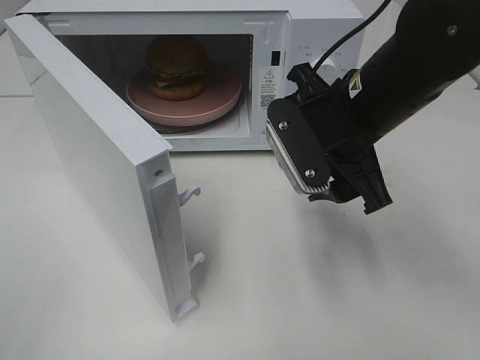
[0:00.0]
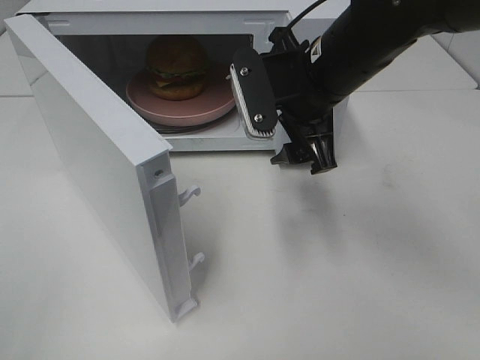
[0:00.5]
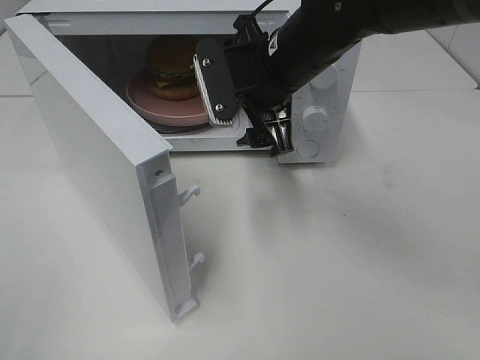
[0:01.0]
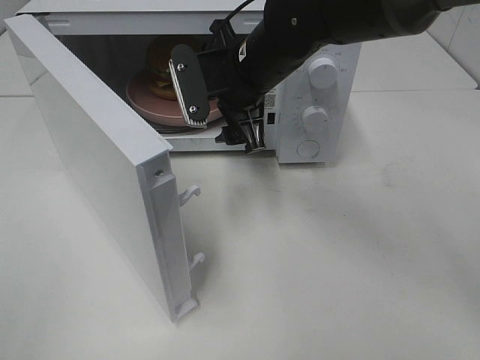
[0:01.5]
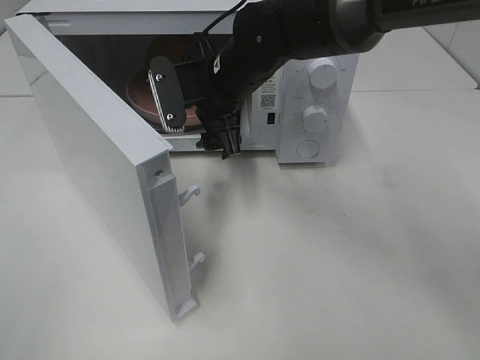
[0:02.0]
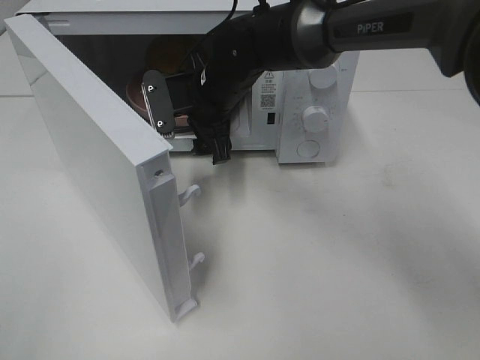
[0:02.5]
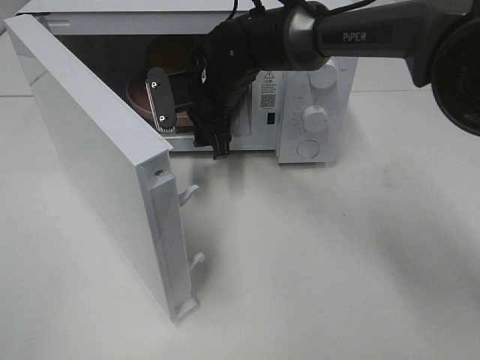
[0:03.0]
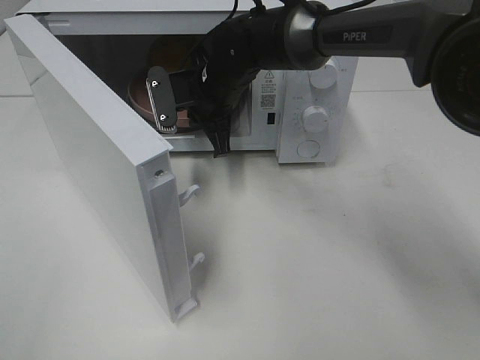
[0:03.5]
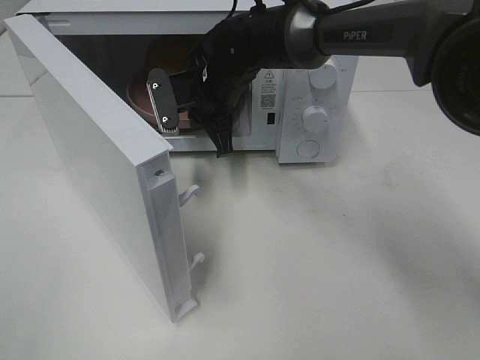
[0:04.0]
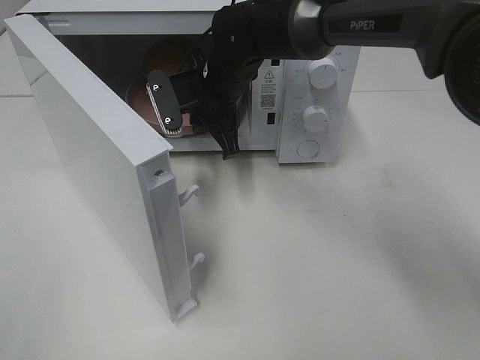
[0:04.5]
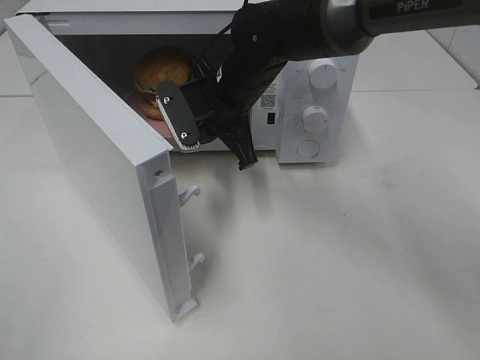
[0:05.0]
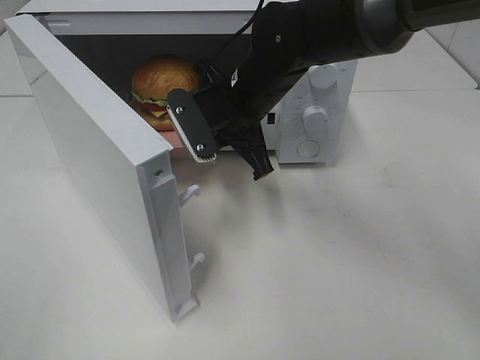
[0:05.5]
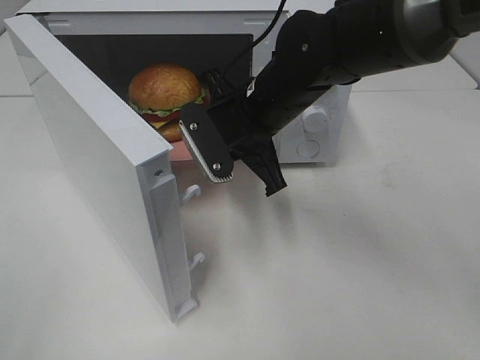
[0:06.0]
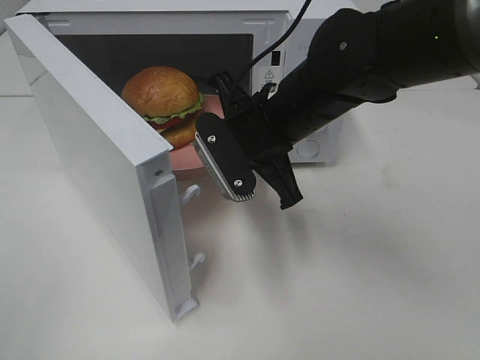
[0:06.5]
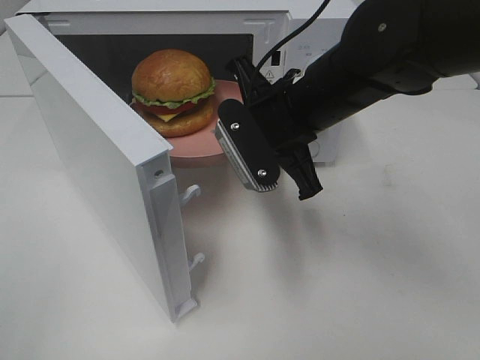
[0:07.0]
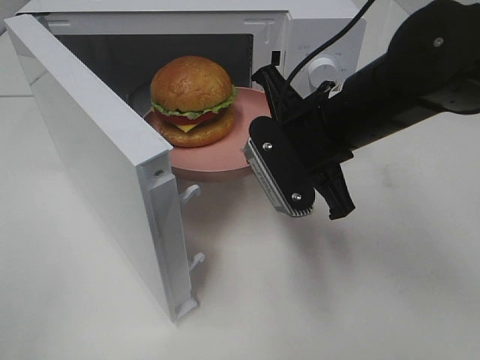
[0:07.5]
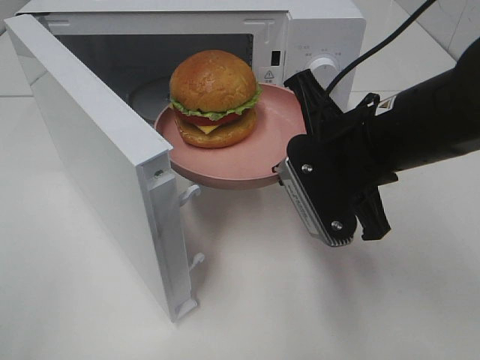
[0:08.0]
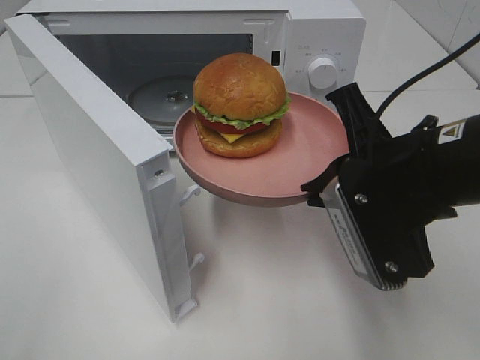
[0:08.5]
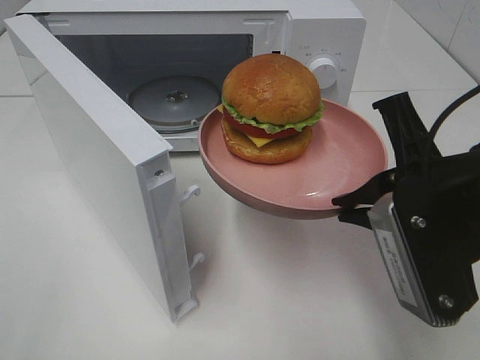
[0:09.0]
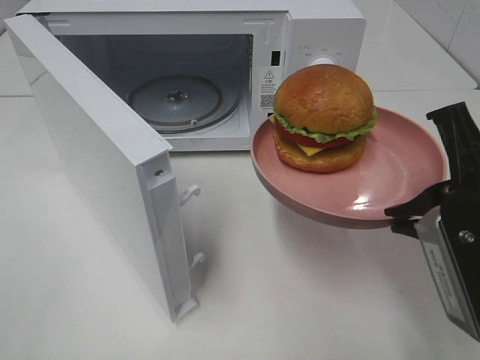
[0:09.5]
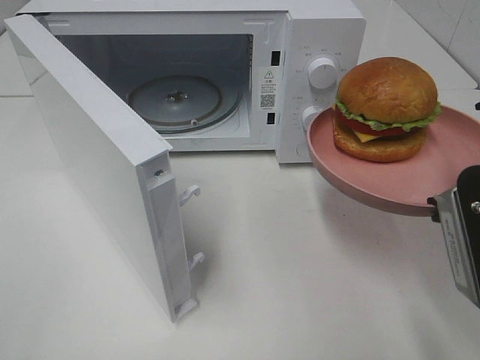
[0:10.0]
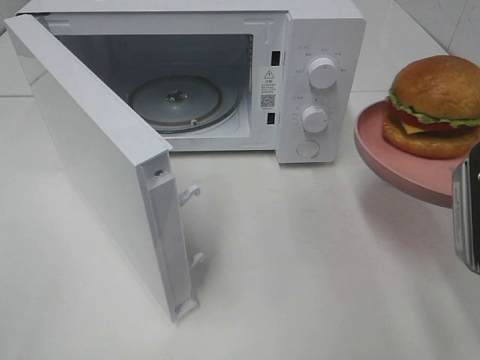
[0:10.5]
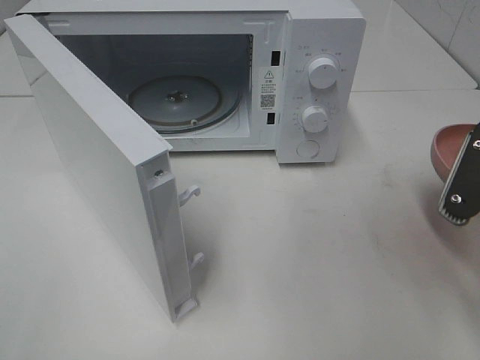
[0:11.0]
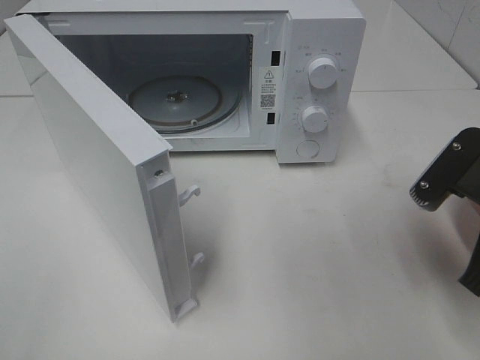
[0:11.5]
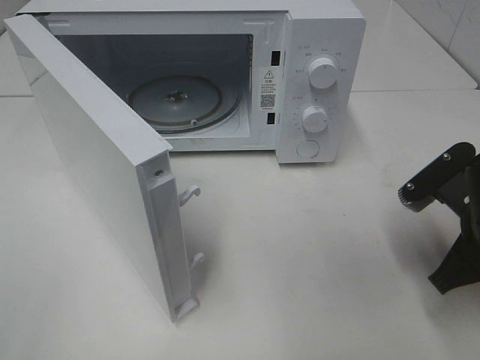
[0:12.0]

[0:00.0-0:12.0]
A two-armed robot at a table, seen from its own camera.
Task of the whole recording: Heat the burger.
Step, 0:00.0 to 0:03.5: Right hand: grab the plate with the hamburger.
0:00.0 to 0:02.0: The right gripper travels to the left and forward by about 15 cm.
0:02.0 to 0:04.0: The right gripper ends up roughly 5 cm from where it was, and closes.
0:04.0 to 0:06.0: The right gripper goes roughly 10 cm backward and to the right.
0:06.0 to 0:08.0: The right gripper travels backward and to the right by about 15 cm.
0:08.0 to 0:10.0: The right gripper shifts some 15 cm backward and to the right.
0:10.0 to 0:12.0: The right gripper is displaced downward and forward by about 10 cm.

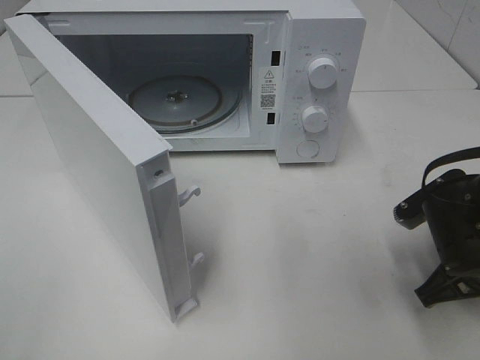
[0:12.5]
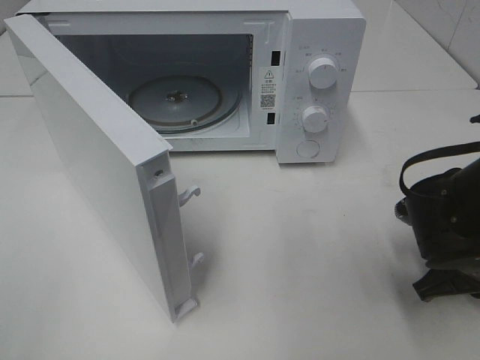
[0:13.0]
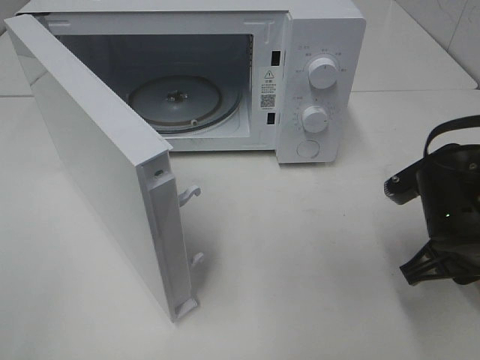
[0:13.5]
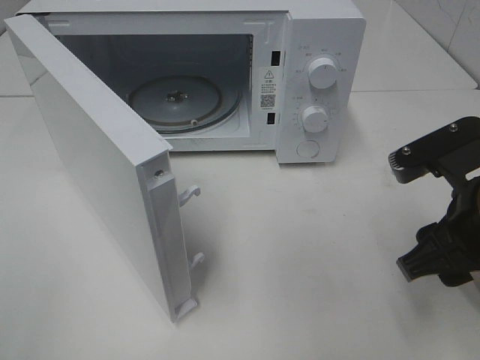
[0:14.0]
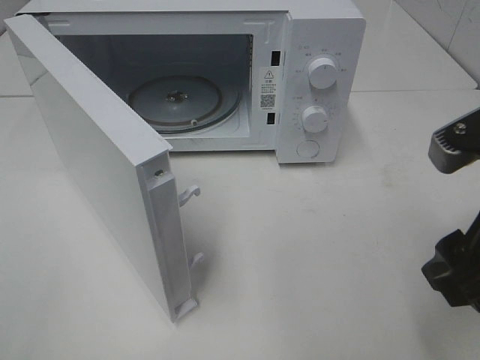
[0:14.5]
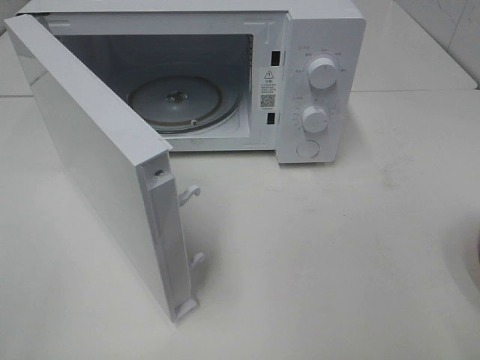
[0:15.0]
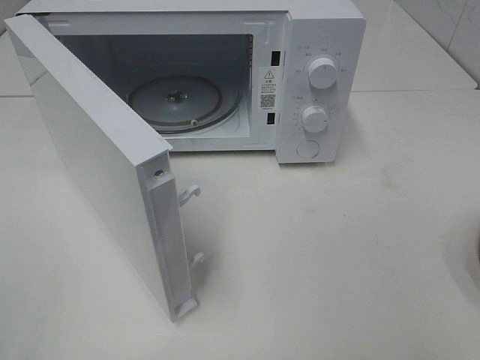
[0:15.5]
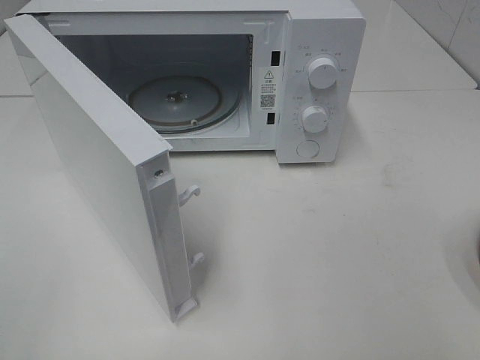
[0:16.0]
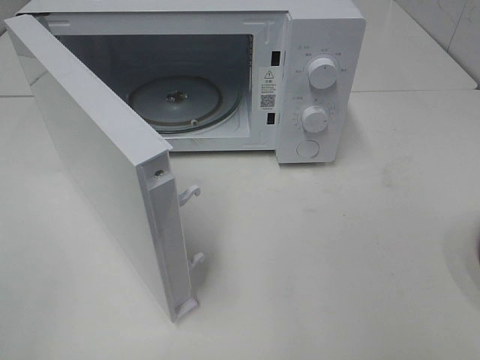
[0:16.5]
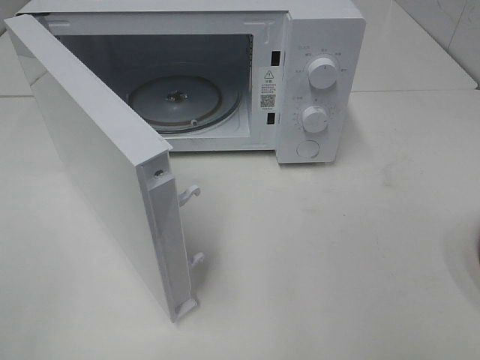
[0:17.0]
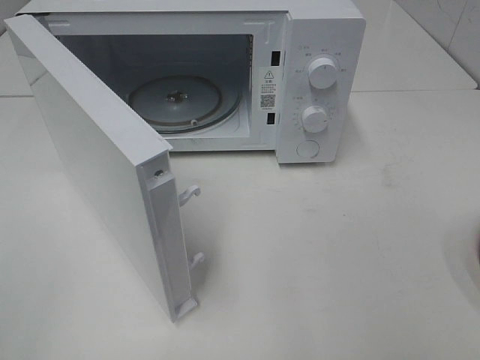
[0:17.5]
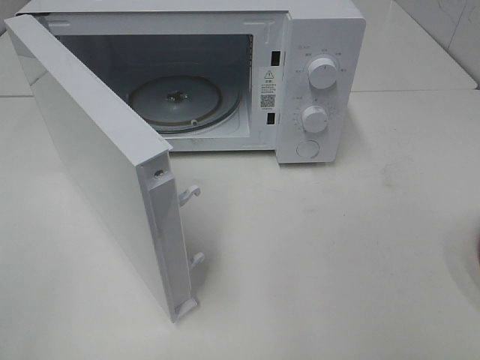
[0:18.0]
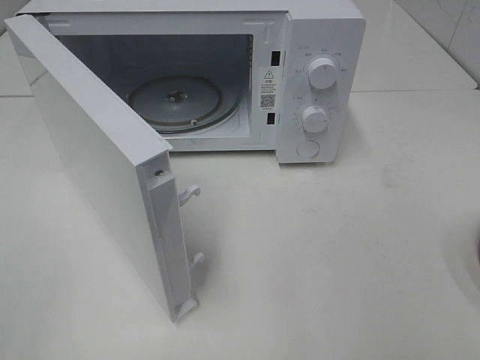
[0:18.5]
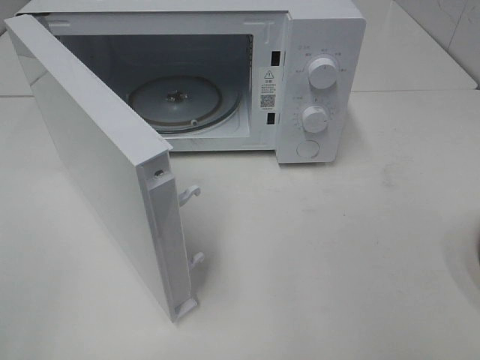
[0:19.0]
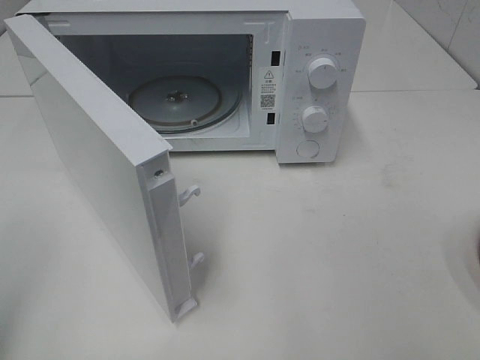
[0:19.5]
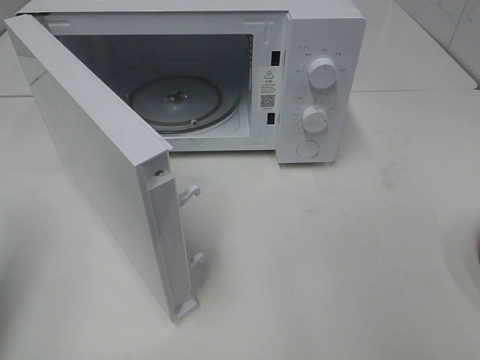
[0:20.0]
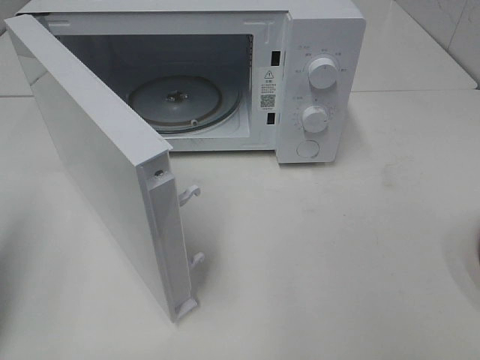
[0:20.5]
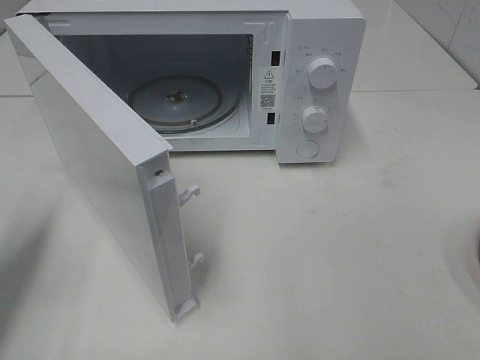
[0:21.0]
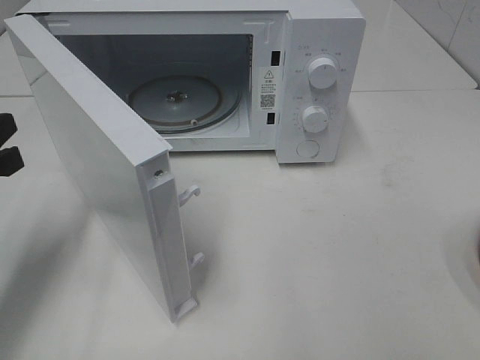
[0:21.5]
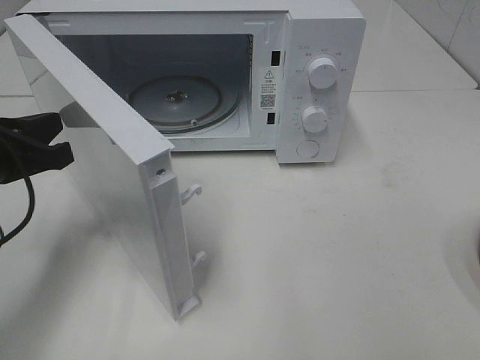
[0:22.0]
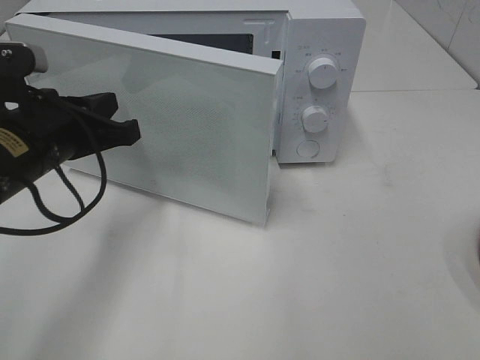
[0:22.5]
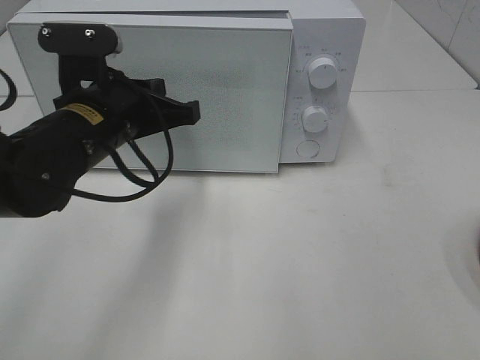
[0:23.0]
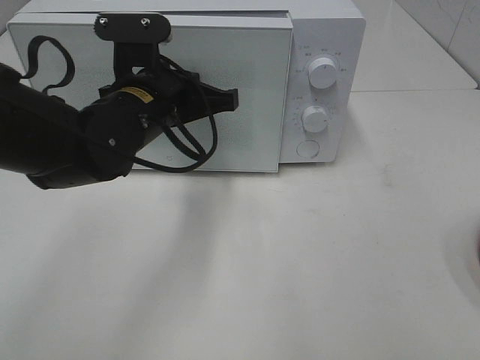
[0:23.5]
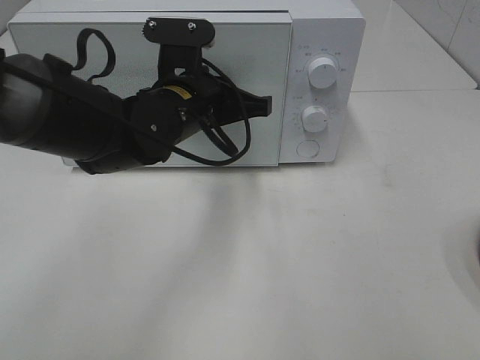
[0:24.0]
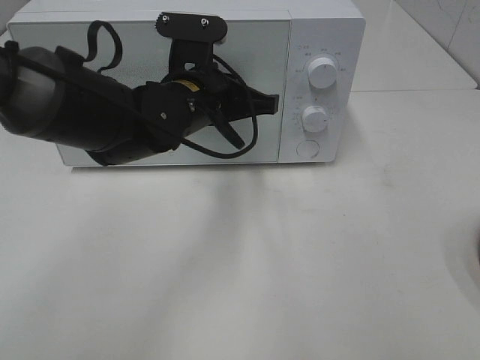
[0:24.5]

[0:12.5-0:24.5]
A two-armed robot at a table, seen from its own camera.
Task of the whole recording: Heat the burger.
0:12.5 to 0:14.5: The right gripper goes approximately 15 cm upward and backward, and opens up.
0:14.5 to 0:16.5: The right gripper moves backward and to the right, roughly 15 cm.
0:16.5 to 0:18.5: Both grippers stay put.
0:18.5 to 0:20.5: The left gripper shifts approximately 15 cm forward, and closes its fingers.
0:20.5 to 0:22.5: The left gripper is displaced to the right, forward and downward by some 20 cm.
0:22.5 to 0:24.5: The left gripper moves to the right and forward, about 15 cm.

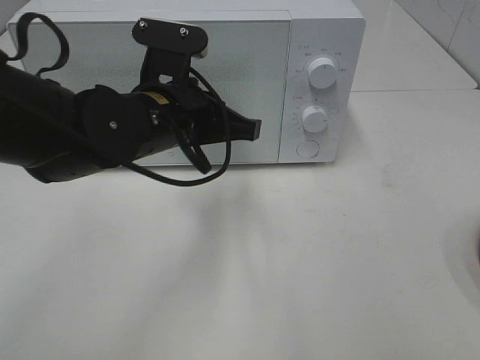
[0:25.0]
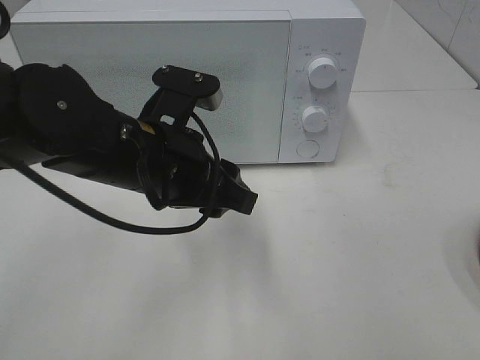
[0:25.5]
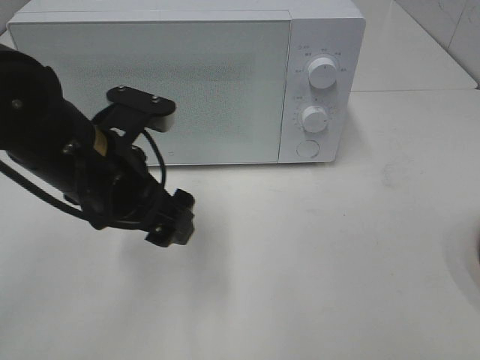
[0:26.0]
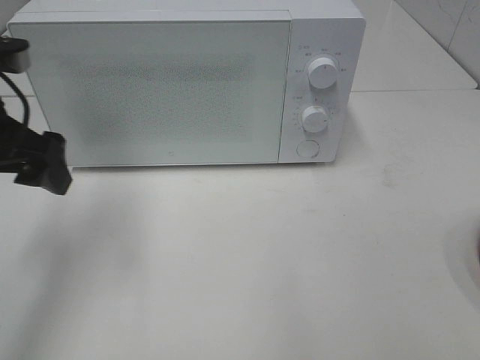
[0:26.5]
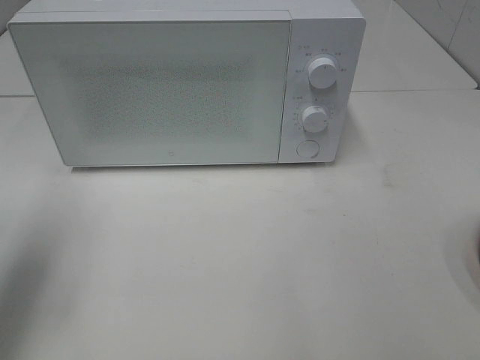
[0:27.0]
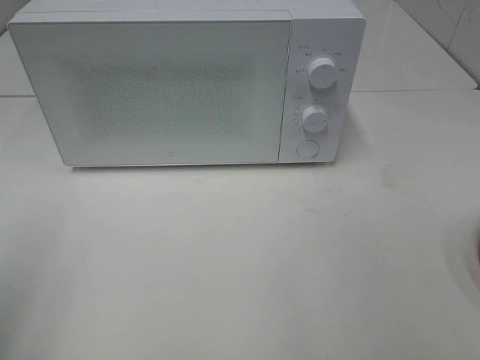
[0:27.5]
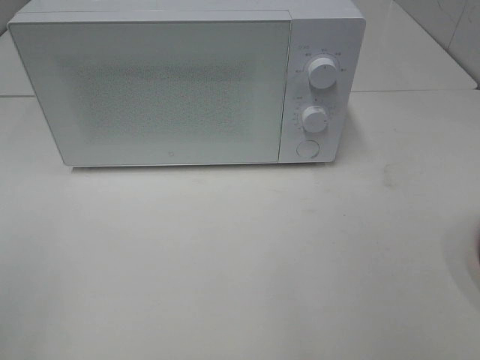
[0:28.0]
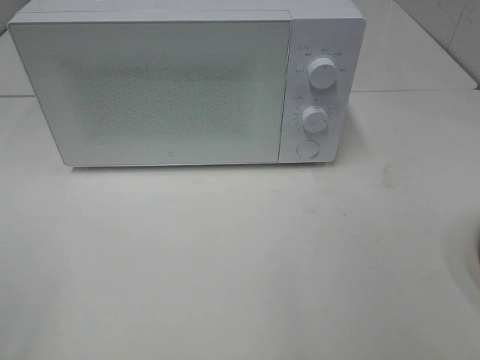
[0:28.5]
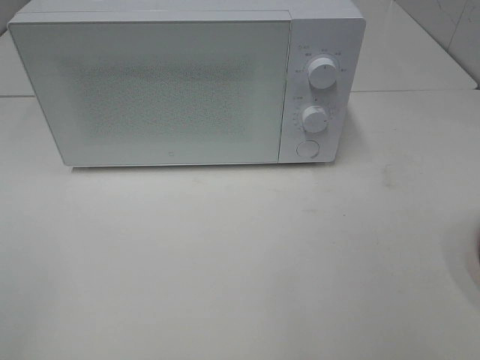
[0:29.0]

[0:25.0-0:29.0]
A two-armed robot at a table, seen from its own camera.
Task of the whole recording: Heat the burger.
0:25.0 to 0:27.0: The left gripper goes roughly 25 cm to the left and backward, and opens up.
0:27.0 to 0:29.0: The left gripper is displaced backward by about 20 cm.
